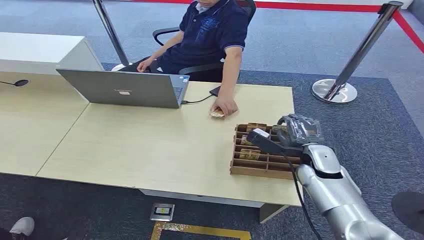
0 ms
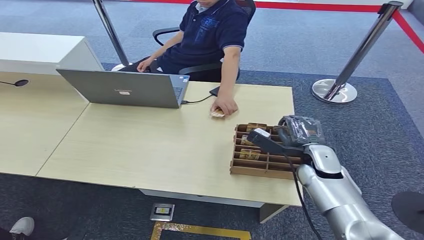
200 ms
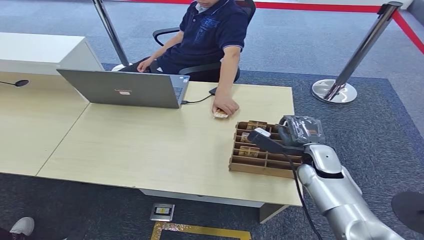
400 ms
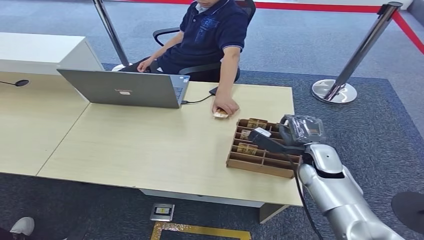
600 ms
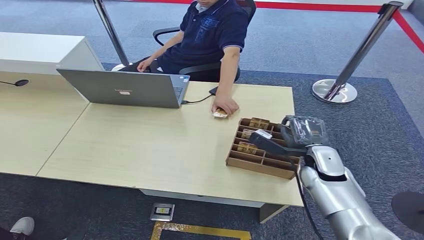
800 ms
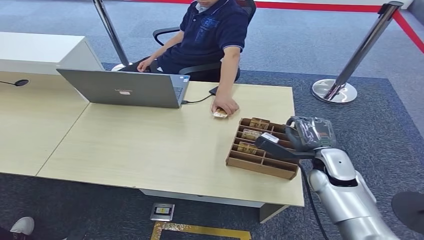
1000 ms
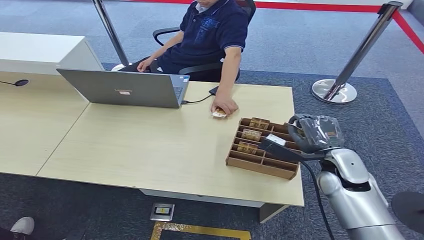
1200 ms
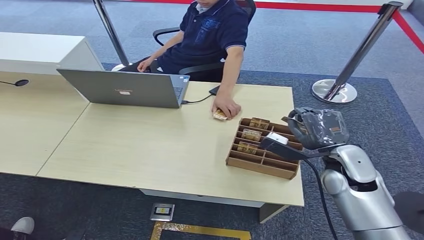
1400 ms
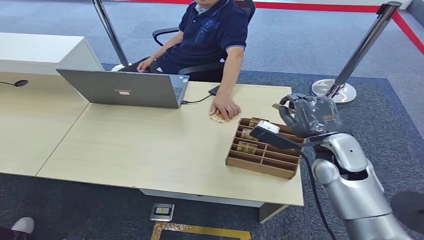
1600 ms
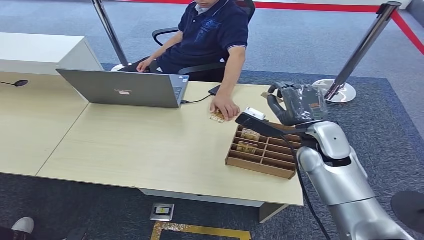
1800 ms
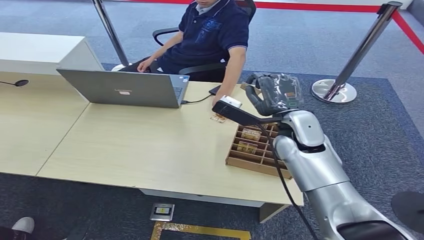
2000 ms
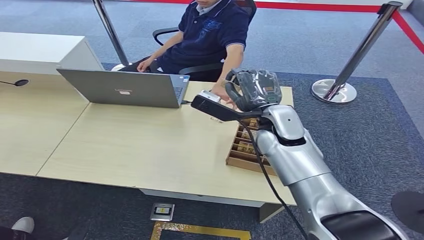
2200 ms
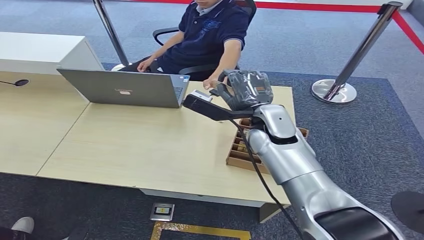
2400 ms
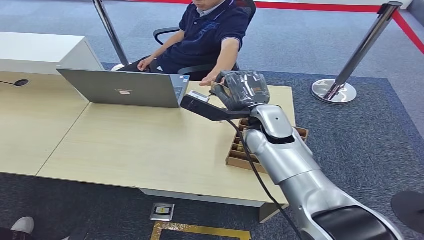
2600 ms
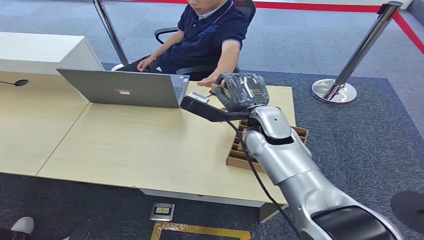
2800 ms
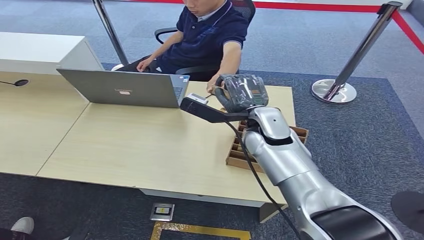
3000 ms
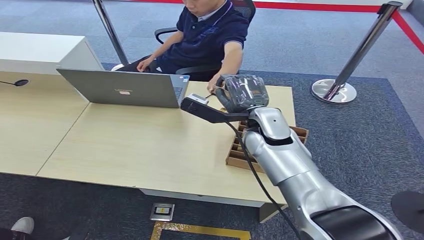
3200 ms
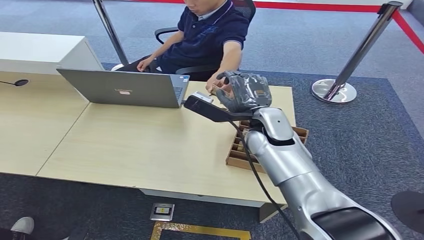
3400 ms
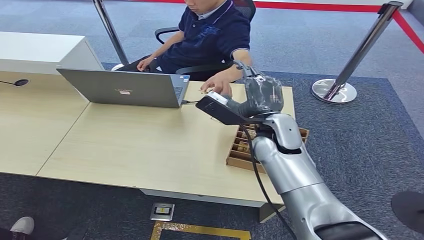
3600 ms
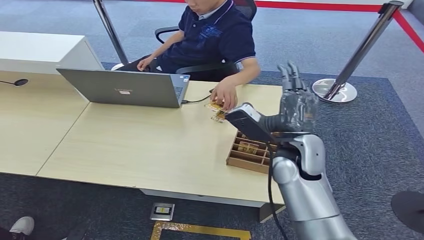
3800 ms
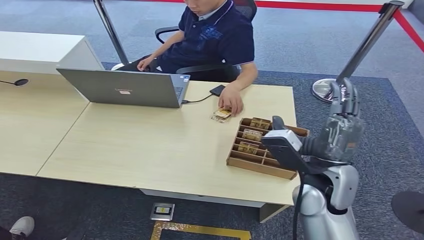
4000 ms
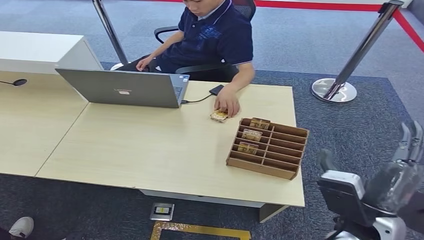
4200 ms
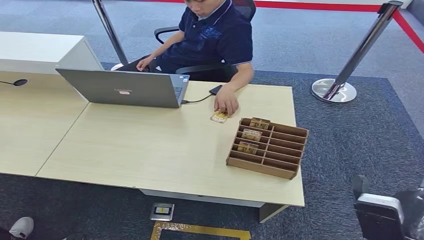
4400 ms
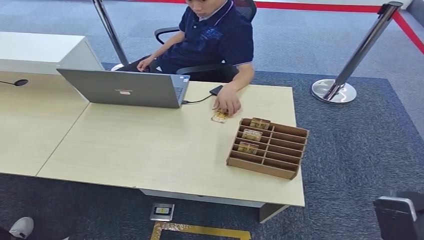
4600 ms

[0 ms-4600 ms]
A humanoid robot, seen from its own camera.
Step, 0 ms to 1800 ms: Pick up the key card from the card box.
Step, 2200 ms to 4600 ms: Hand the key card to the target.
1600 ms to 3000 ms: The right hand heads to the left, covering some 15 cm.
3000 ms to 4600 ms: The right hand moves backward and to the right, some 30 cm.
